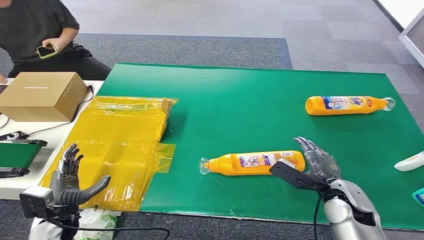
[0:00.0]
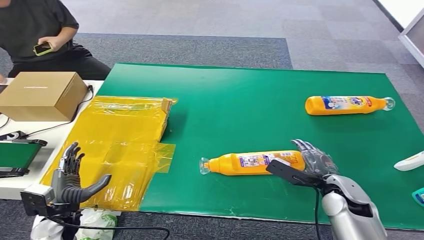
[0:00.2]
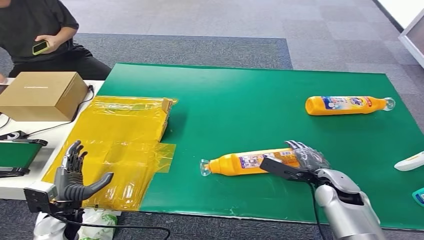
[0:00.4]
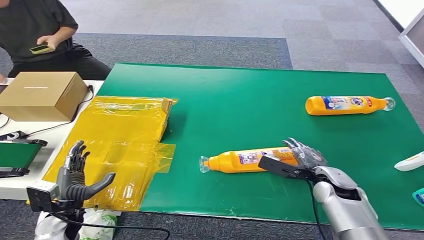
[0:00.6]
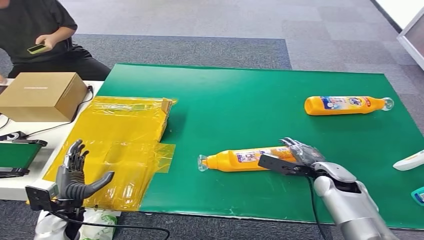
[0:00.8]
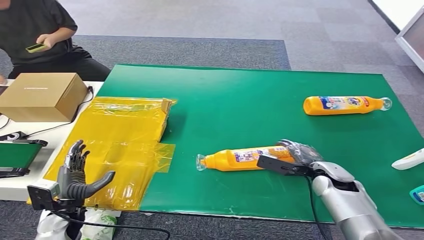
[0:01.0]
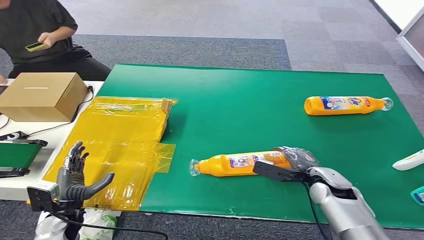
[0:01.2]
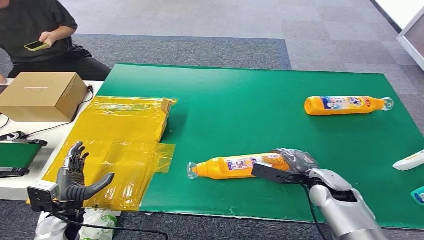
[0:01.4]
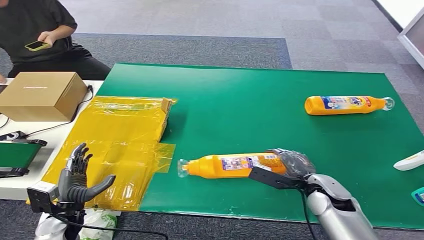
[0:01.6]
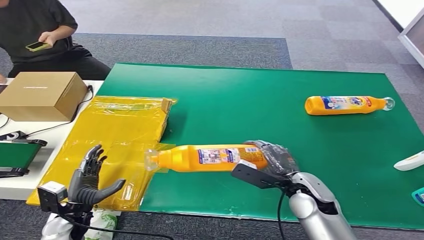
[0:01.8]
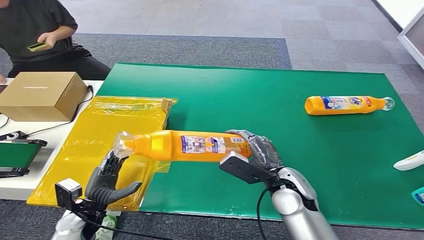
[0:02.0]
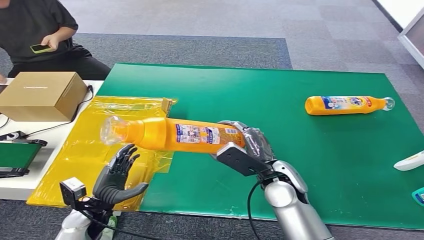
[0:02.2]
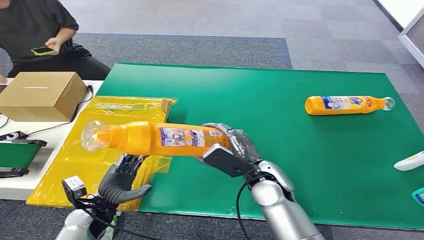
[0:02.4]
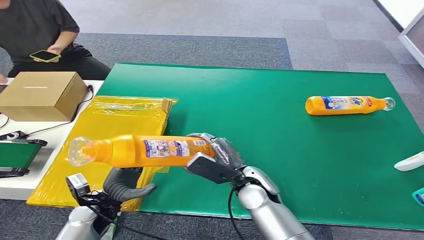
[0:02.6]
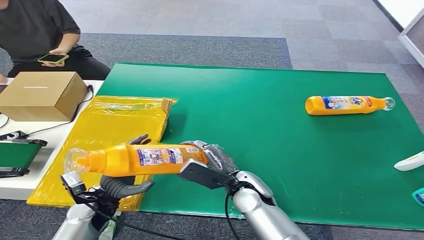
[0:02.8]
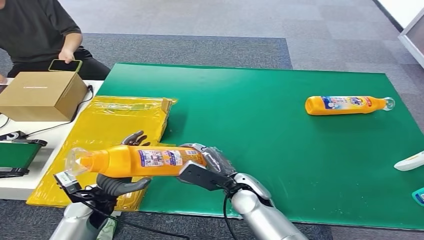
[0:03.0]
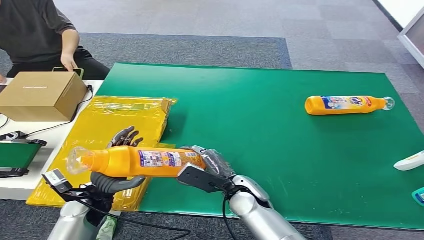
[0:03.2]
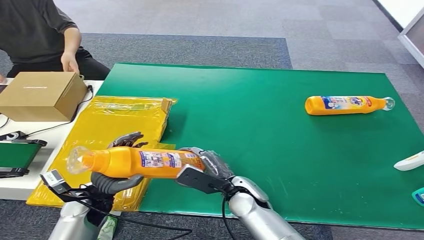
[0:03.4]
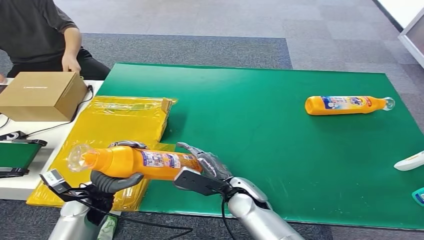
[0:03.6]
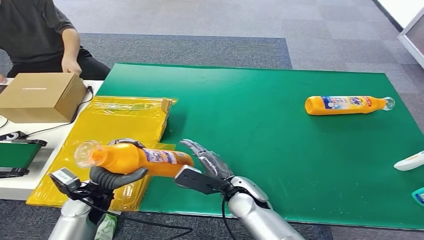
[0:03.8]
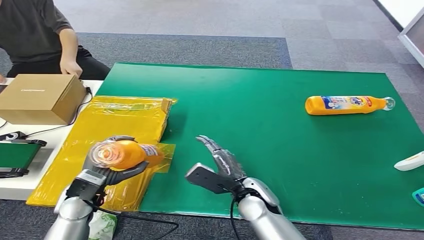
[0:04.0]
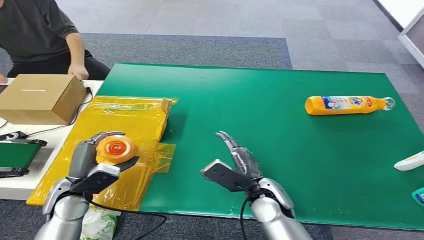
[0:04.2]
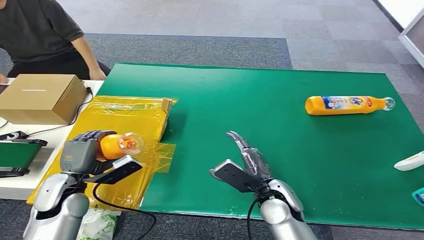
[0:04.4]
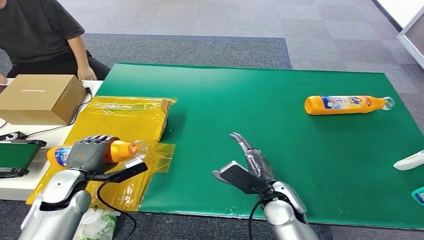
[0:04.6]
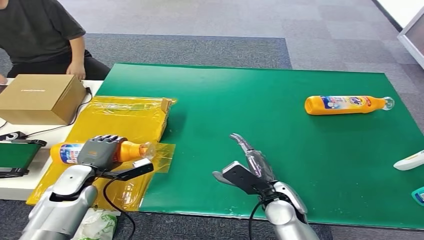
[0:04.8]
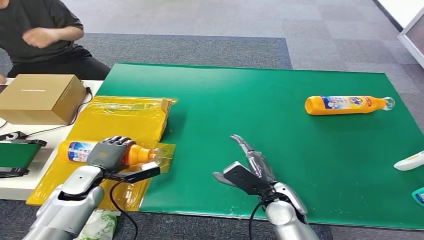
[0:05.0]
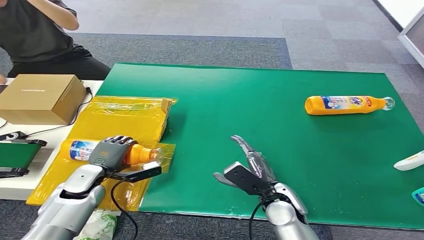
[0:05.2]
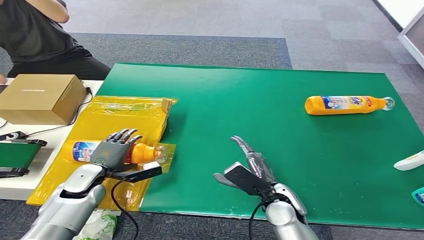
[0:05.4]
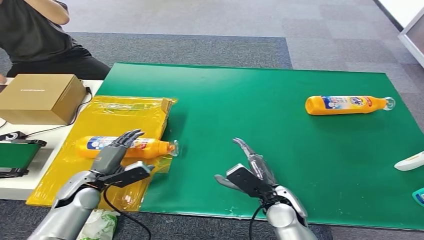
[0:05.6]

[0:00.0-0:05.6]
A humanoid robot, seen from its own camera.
Step, 0:00.0 to 0:01.8: Pick up the bottle from the table.
Step, 0:02.0 to 0:05.6: Turn the bottle to the front side.
0:02.8 to 0:04.2: The left hand is displaced upward by about 5 cm.
0:04.2 to 0:05.6: The left hand goes roughly 5 cm downward.

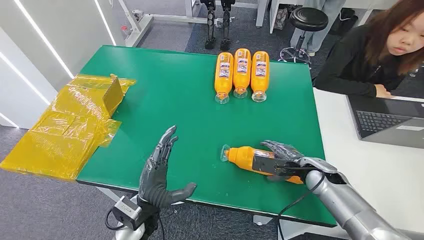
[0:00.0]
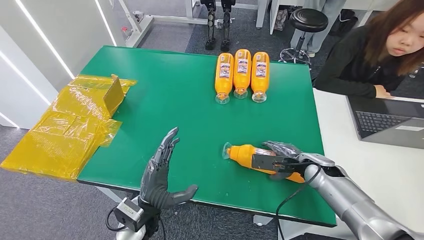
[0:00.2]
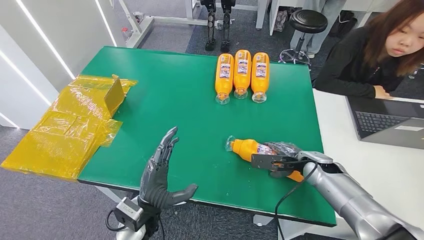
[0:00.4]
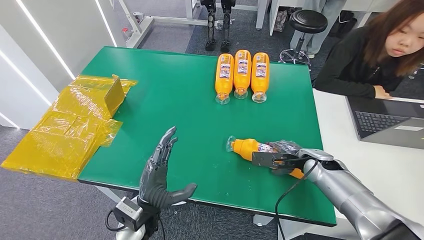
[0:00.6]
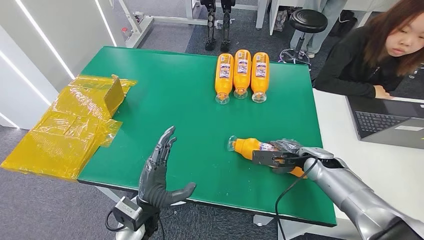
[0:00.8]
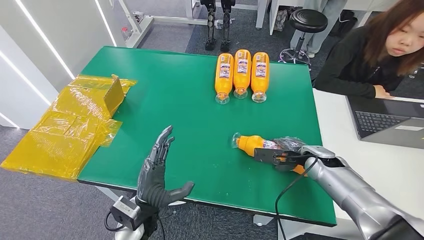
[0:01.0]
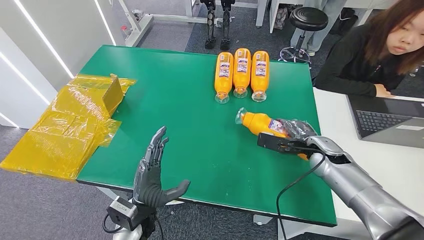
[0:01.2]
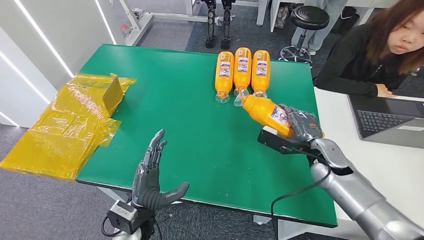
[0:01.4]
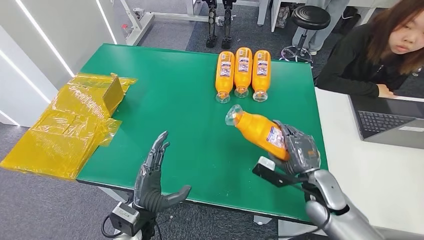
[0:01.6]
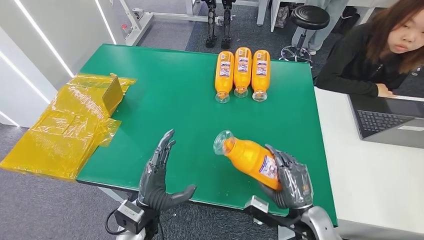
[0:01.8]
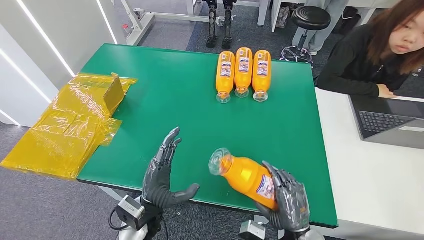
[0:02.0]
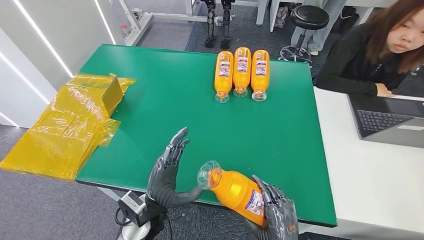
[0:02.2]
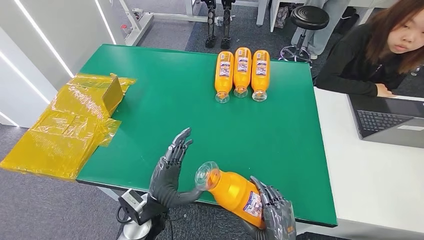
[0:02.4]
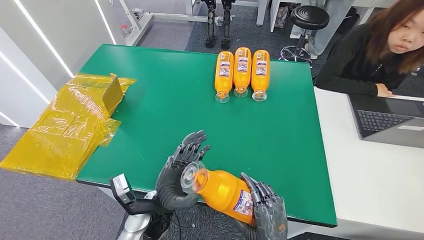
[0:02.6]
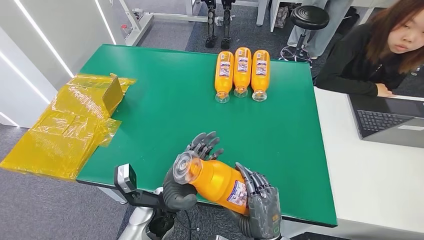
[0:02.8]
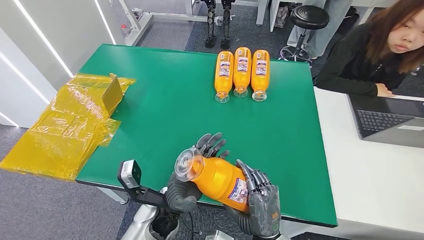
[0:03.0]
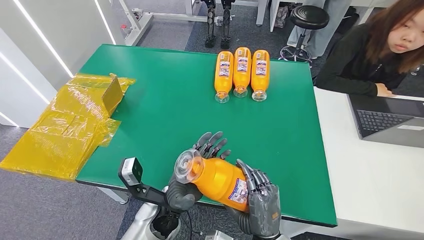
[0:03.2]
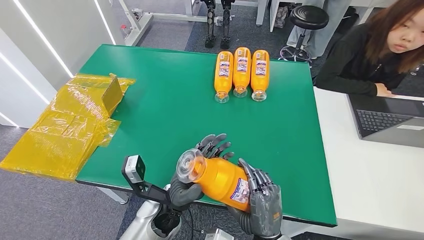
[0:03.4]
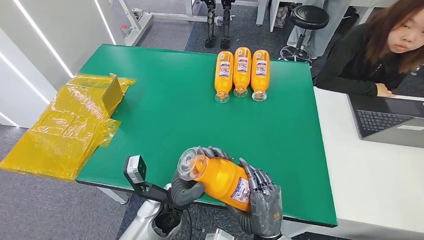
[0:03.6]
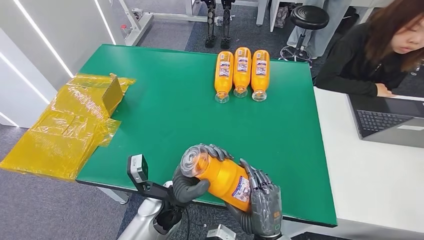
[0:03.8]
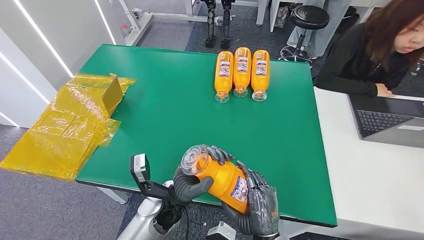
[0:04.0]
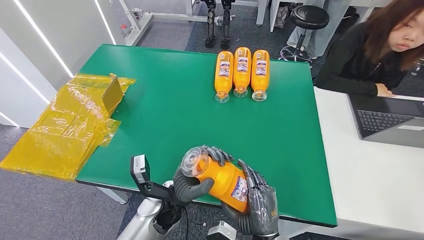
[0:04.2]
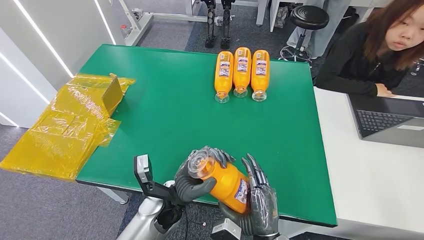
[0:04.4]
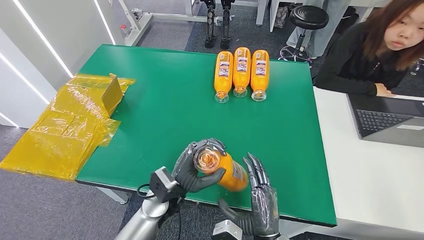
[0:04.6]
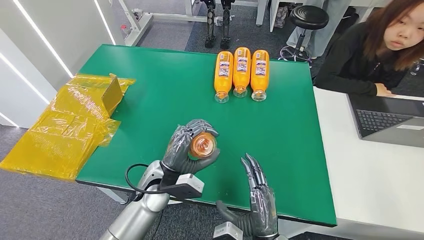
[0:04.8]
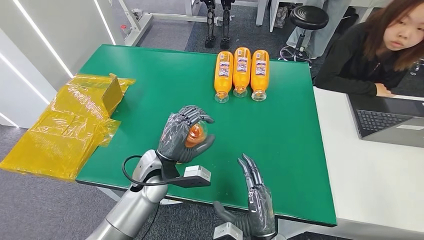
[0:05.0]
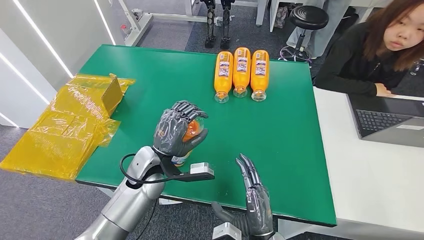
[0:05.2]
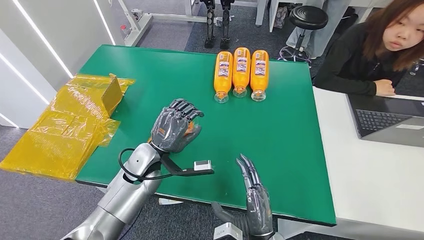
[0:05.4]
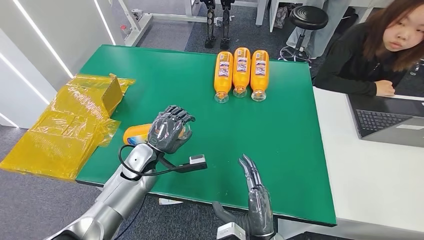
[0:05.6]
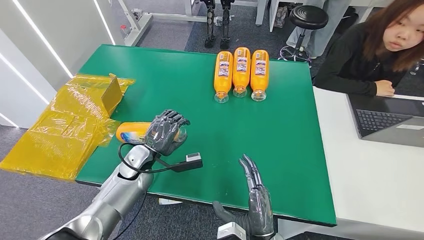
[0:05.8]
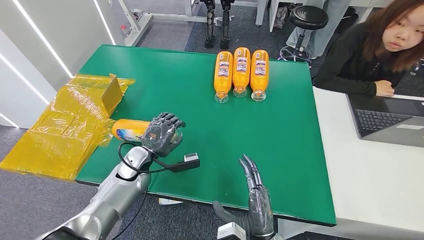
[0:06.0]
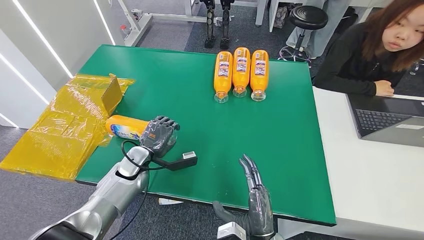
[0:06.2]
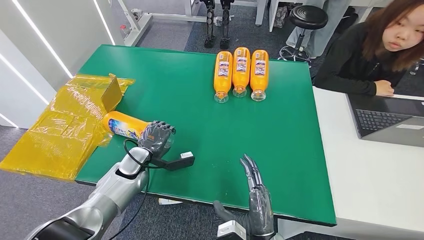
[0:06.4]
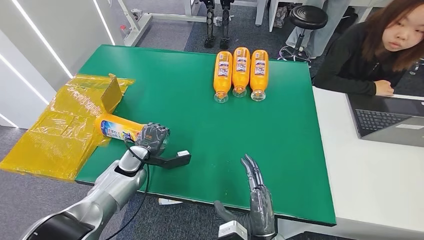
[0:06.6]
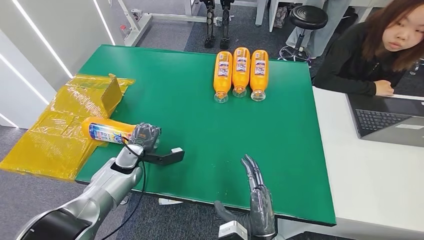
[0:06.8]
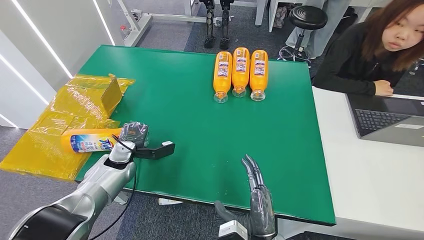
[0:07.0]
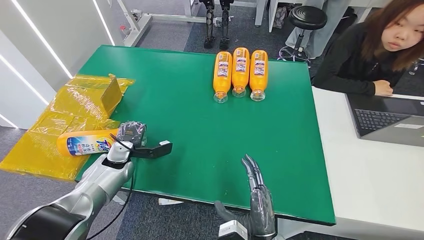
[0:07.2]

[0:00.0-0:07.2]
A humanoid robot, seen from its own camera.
Step, 0:00.0 to 0:02.8: Pick up the bottle from the table.
Step, 0:03.0 to 0:07.2: Turn the bottle to the front side.
0:01.4 to 0:02.8: The left hand moves to the right, approximately 5 cm; the right hand is displaced backward, to the left and downward by roughly 30 cm.
0:02.8 to 0:04.4: The hands make only small movements.
0:04.4 to 0:05.8: The left hand heads to the left and forward, covering approximately 15 cm.
0:05.8 to 0:07.2: The left hand is displaced to the left by about 10 cm.
